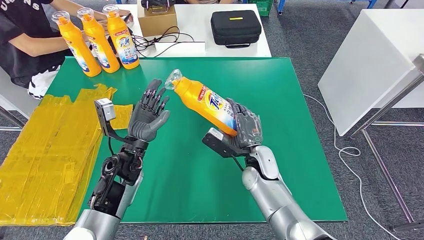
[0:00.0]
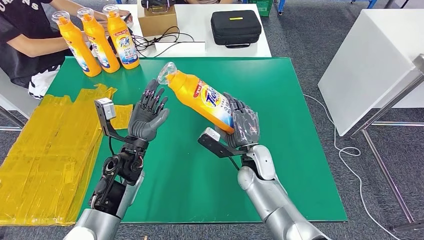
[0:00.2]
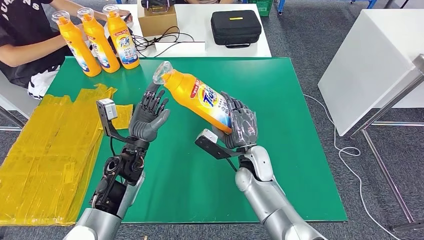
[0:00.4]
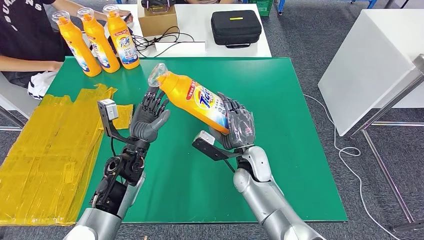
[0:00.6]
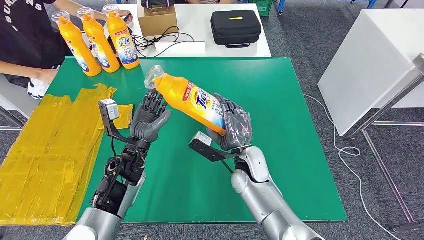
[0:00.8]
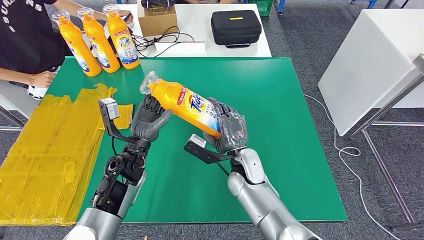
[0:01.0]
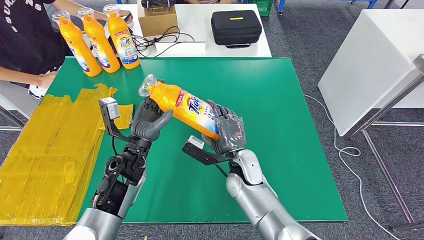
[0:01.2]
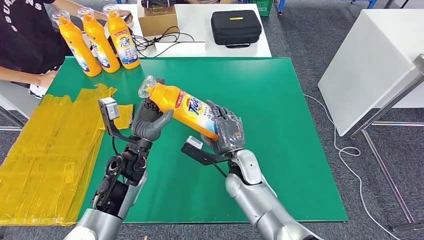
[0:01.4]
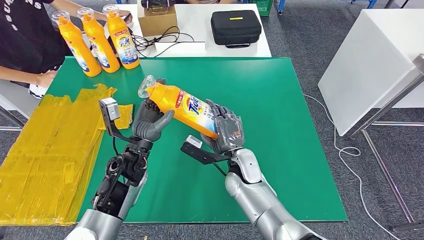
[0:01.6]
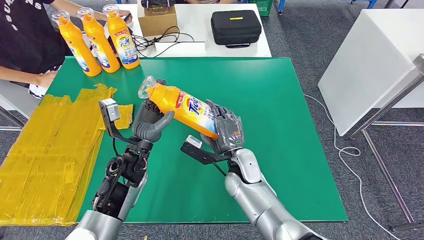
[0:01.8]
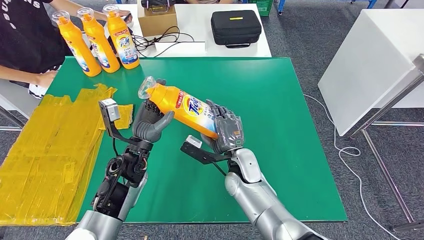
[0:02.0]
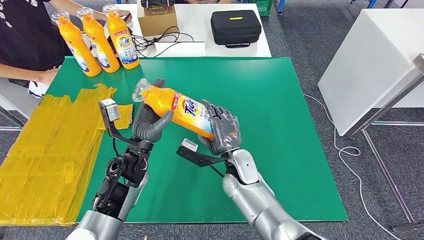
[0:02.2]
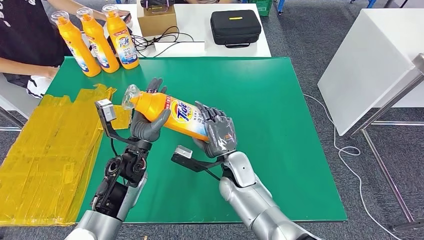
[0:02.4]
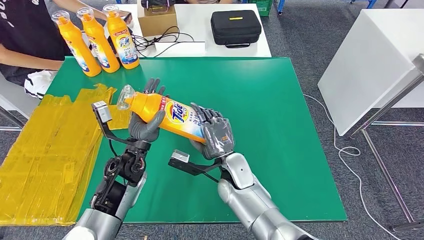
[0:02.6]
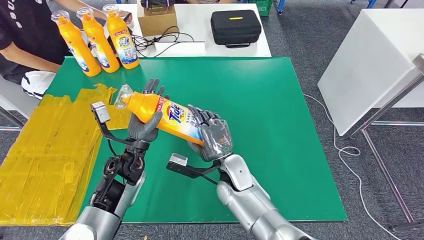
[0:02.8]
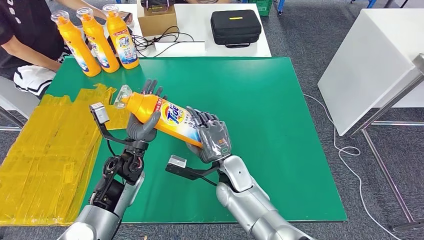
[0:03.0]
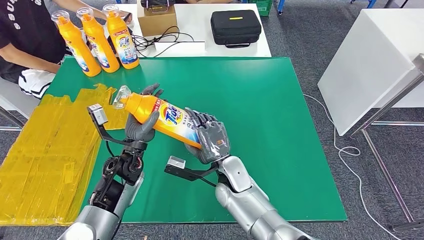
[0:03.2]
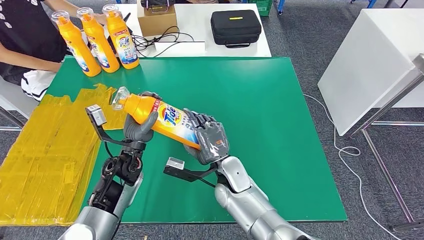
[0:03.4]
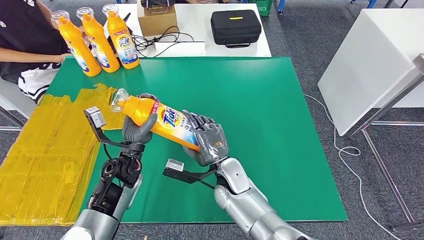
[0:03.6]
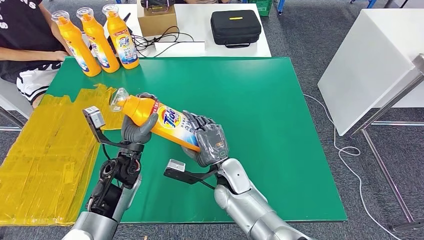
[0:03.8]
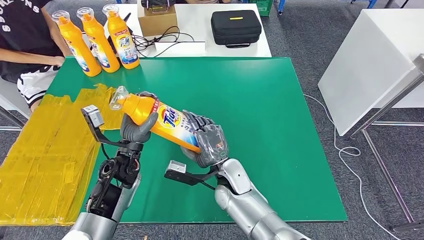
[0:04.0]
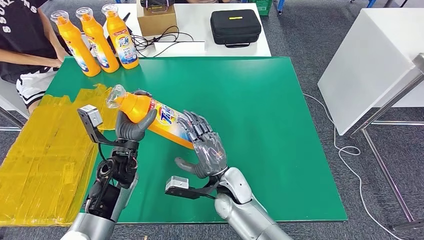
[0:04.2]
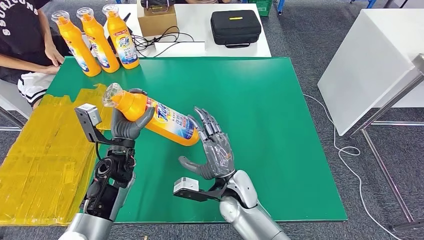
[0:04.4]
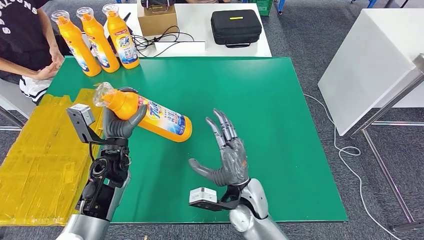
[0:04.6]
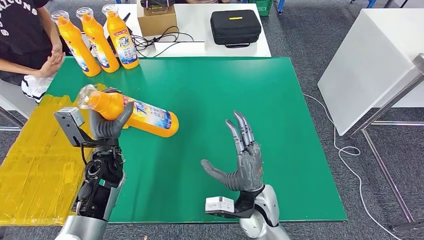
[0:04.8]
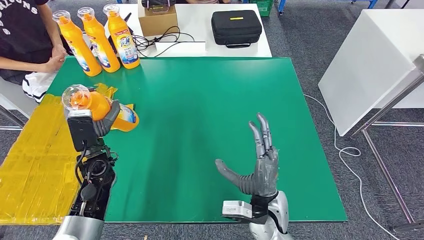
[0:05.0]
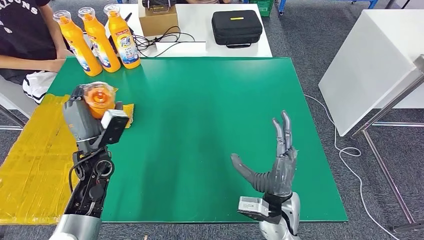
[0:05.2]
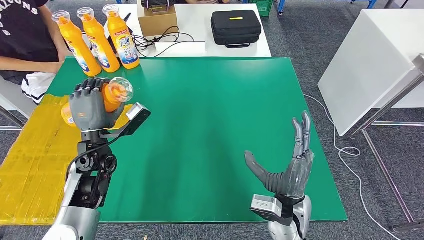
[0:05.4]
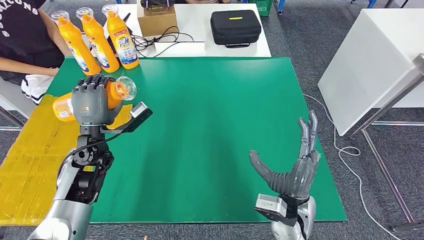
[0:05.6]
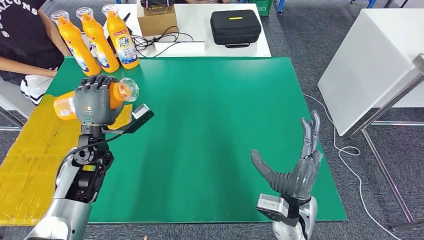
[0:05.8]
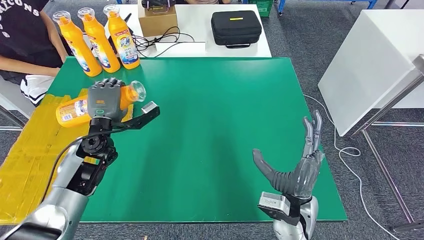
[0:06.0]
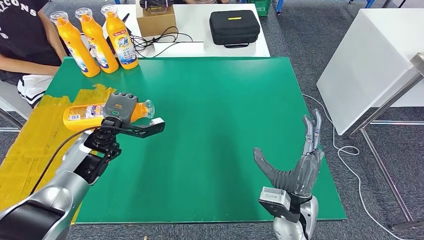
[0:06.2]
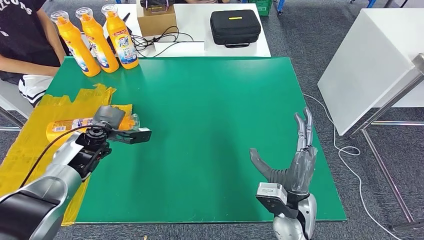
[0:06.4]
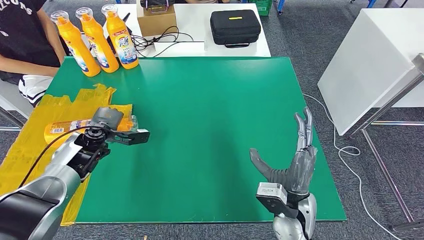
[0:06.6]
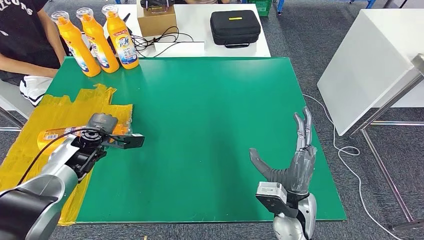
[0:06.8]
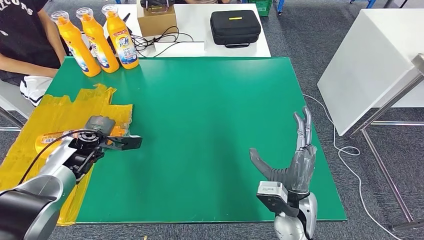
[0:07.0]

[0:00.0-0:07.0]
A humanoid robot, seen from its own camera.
Step, 0:01.2 to 0:07.0: Flip the bottle to face forward.
0:00.0 to 0:01.4: The right hand ends up about 5 cm from where it was.
0:01.4 to 0:02.8: There are only small adjustments of the hands.
0:02.8 to 0:04.2: There are only small adjustments of the hands.
0:05.6 to 0:07.0: The left hand moves to the left, downward and forward, approximately 10 cm.
